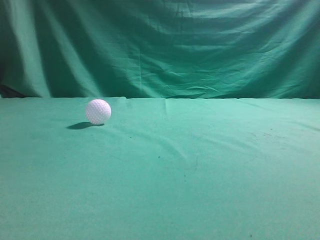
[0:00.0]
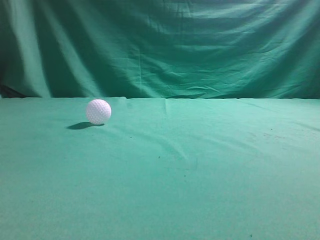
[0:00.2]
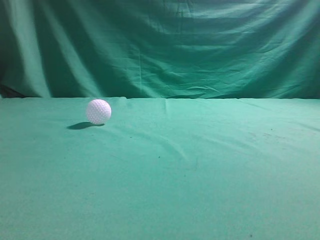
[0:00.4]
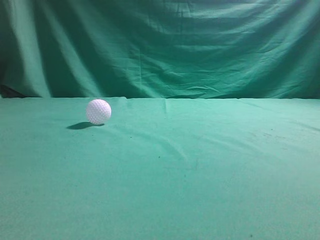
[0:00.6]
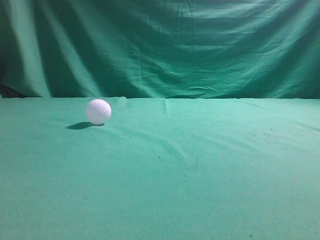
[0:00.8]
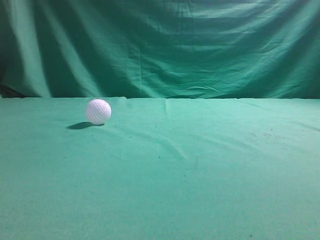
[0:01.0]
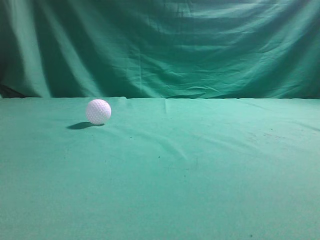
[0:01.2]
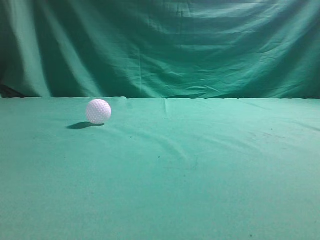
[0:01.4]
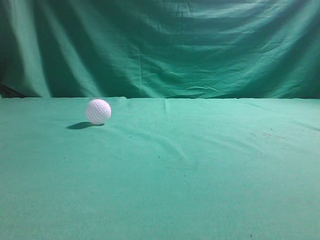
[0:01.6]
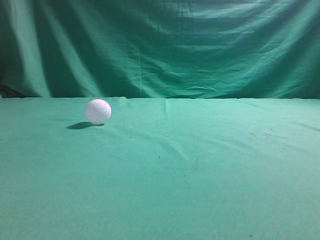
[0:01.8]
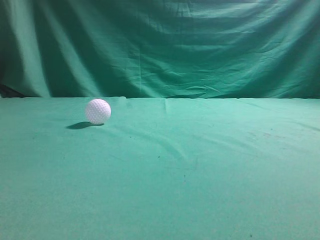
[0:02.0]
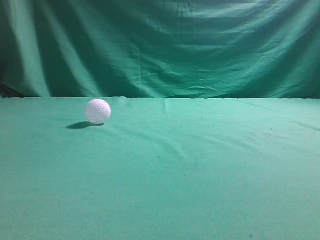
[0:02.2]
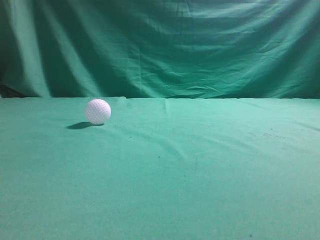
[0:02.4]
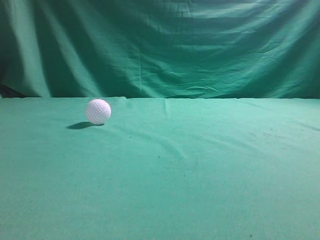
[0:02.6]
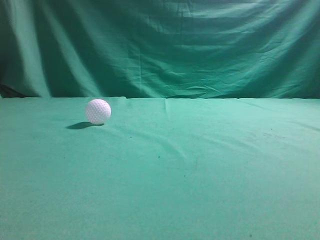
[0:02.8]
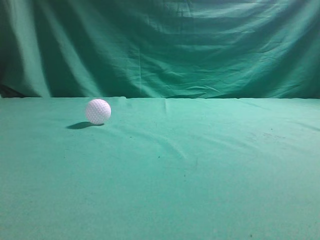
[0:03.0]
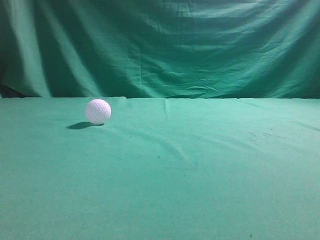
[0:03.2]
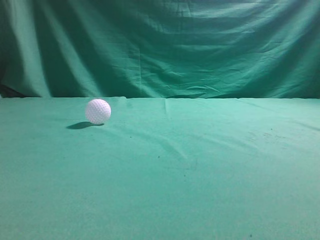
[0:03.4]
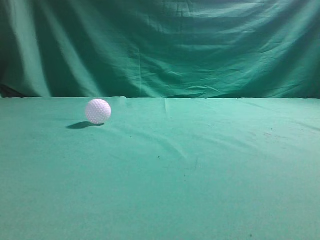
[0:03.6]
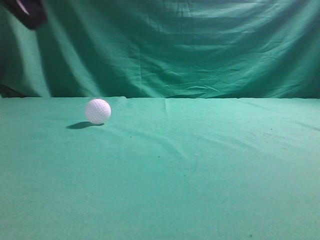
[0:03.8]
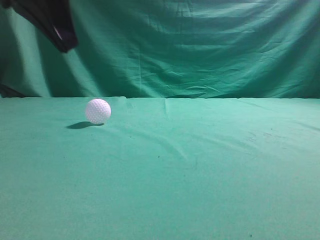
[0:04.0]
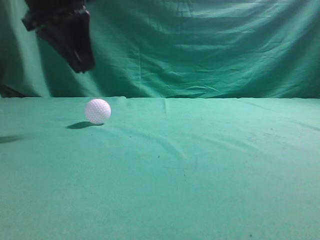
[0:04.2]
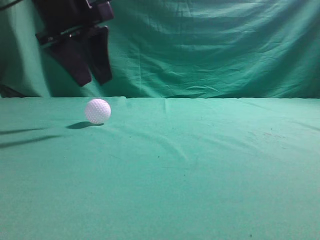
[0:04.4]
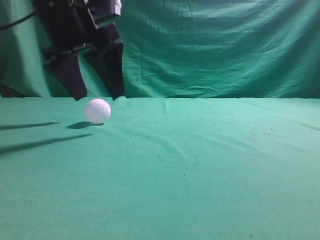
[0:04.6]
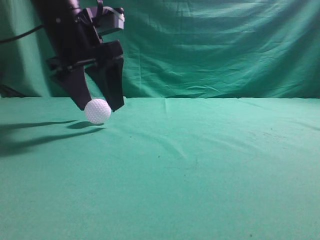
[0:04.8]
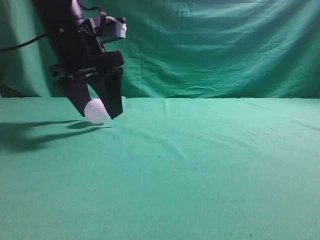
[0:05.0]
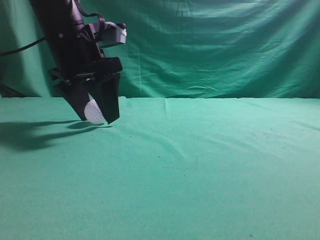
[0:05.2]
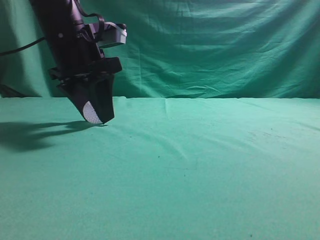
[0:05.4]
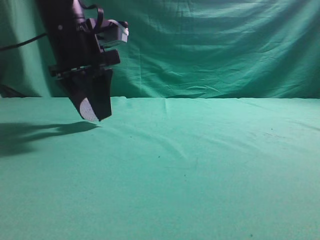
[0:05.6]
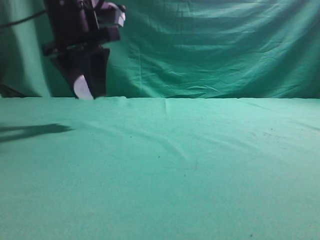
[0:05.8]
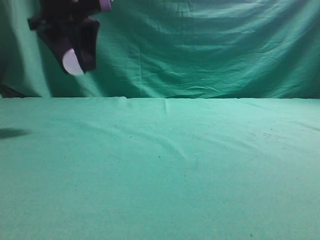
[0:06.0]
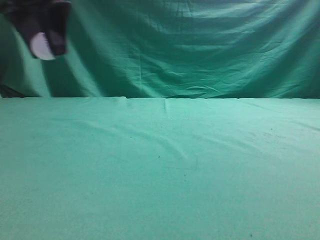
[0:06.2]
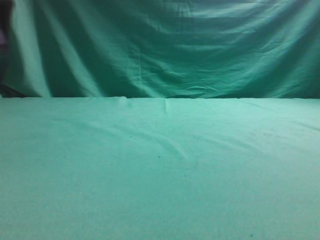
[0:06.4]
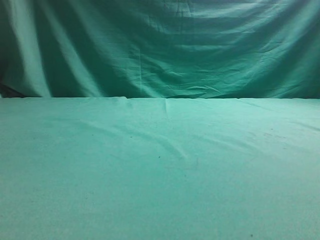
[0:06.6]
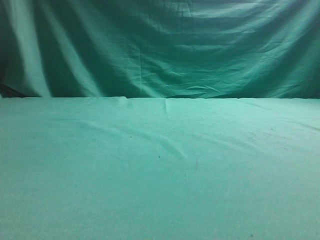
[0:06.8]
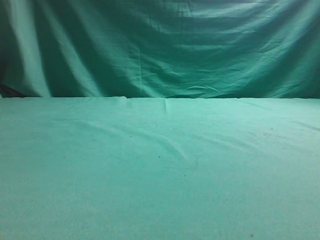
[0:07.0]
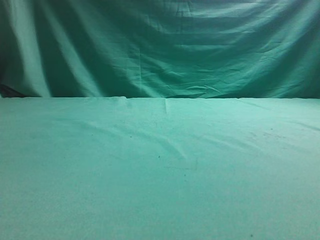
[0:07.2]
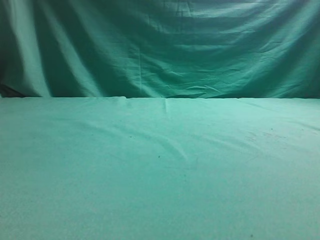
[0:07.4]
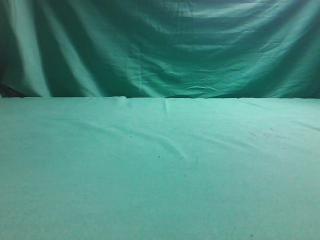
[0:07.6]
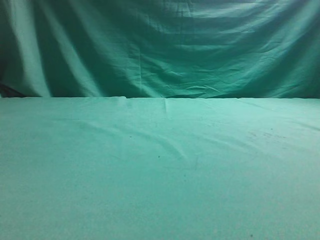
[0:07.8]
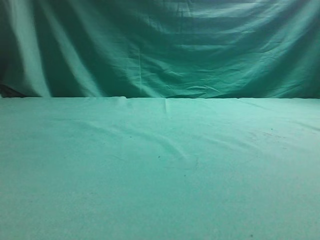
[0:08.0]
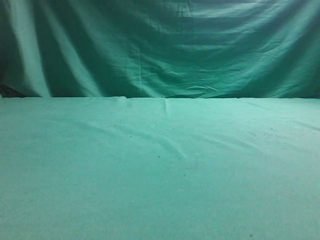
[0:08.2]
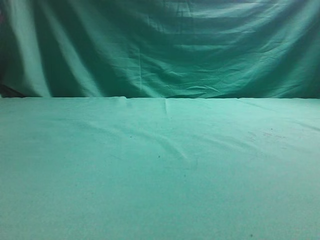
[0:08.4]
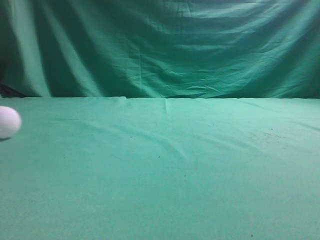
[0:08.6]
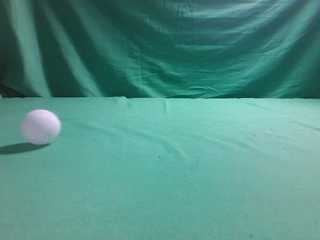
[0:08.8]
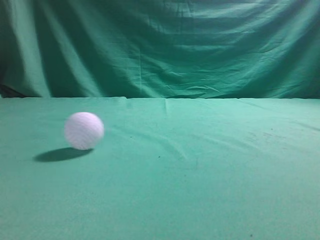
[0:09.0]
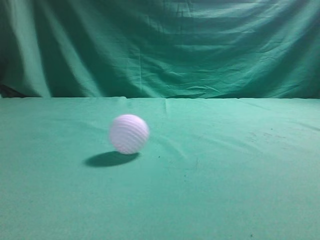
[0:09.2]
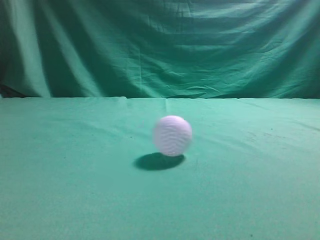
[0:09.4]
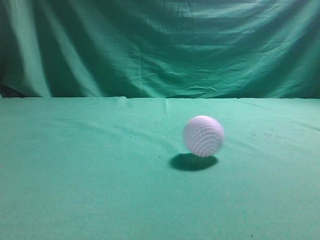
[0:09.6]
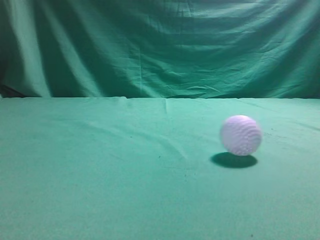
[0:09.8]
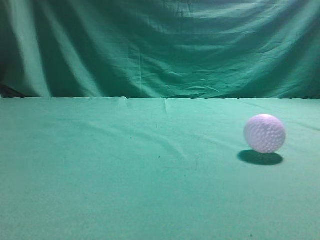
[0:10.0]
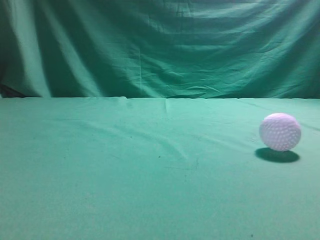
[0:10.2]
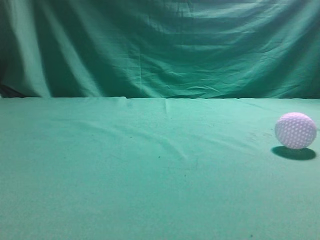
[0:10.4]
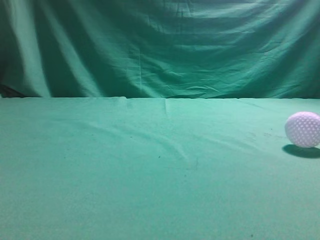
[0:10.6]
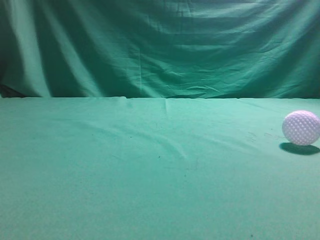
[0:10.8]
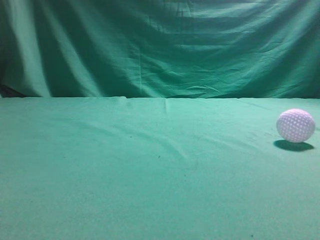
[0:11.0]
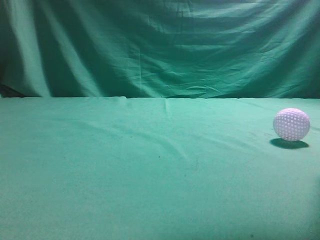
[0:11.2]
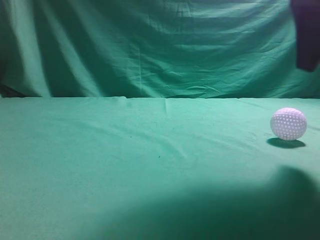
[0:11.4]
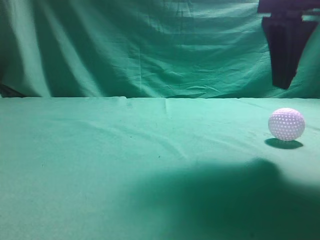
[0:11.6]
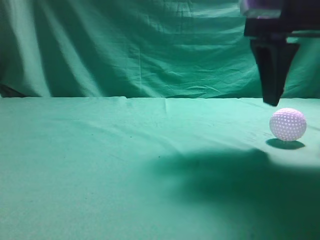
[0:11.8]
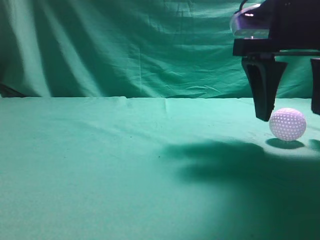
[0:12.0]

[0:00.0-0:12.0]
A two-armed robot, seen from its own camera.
Task of the whole recording: pick up the ball and place it on the plate, then pick up the ball from the plate and put it in the center of the table.
Step, 0:00.0 to 0:05.6: Grab the spherical object with your left arm.
Step, 0:05.8 to 0:08.0: Place the sphere on the white object.
0:03.0 to 0:04.4: The left gripper goes approximately 30 cm forward and to the right, and opens its fingers.
0:04.4 to 0:06.0: The left gripper reaches about 5 cm downward, then returns, and opens, then closes once more.
0:06.0 to 0:07.6: The left gripper shifts roughly 20 cm to the left.
0:07.6 to 0:09.0: The left gripper is displaced upward and to the right by some 25 cm, and closes.
0:09.0 to 0:10.4: The right gripper travels upward by some 10 cm. Meanwhile the left gripper moves backward and downward, roughly 25 cm.
0:10.4 to 0:12.0: The right gripper heads forward, to the left and downward, covering about 25 cm, and opens.

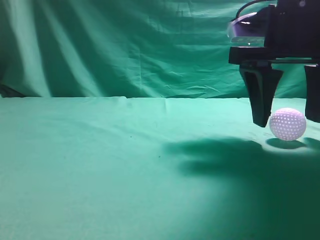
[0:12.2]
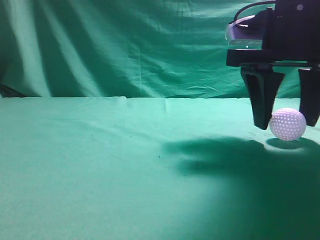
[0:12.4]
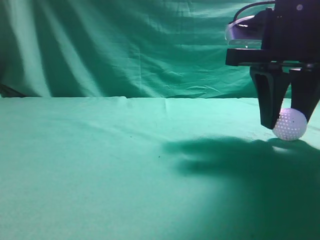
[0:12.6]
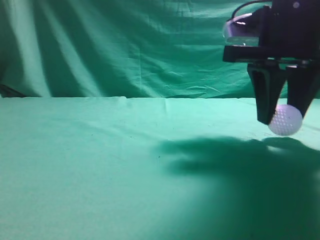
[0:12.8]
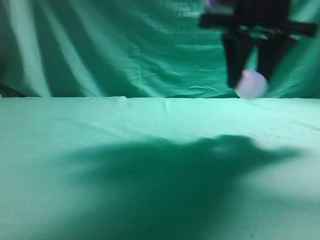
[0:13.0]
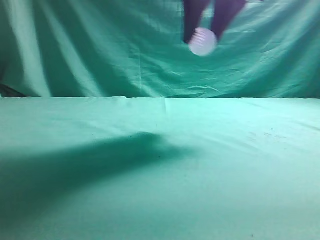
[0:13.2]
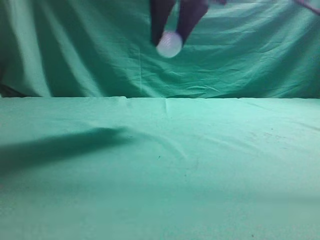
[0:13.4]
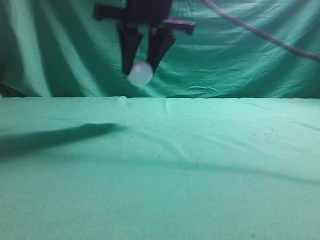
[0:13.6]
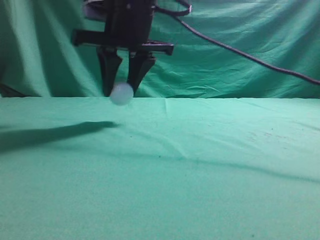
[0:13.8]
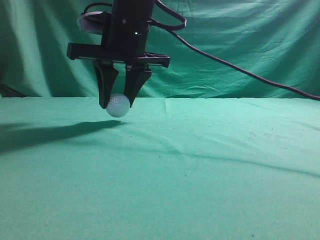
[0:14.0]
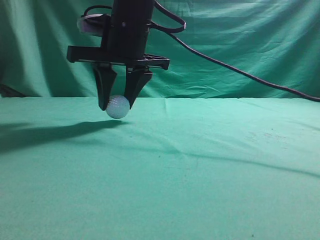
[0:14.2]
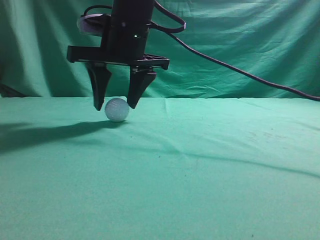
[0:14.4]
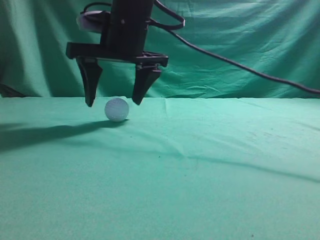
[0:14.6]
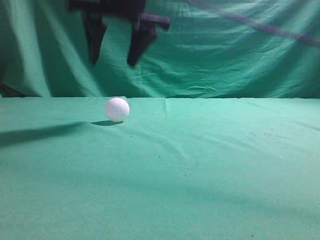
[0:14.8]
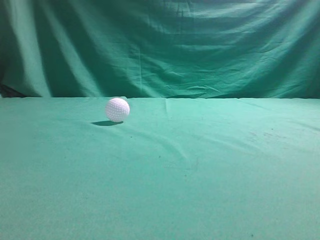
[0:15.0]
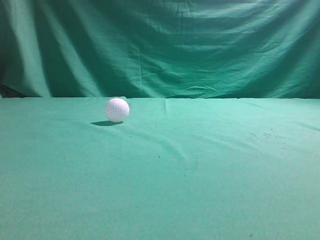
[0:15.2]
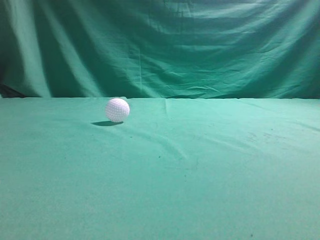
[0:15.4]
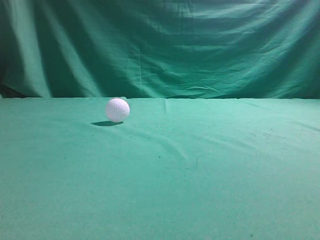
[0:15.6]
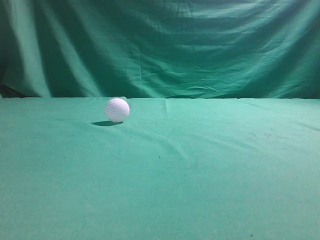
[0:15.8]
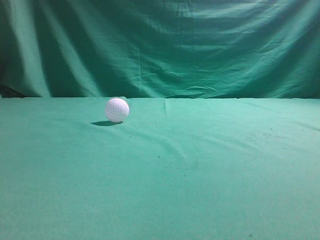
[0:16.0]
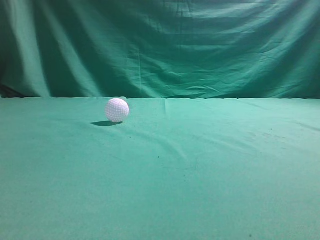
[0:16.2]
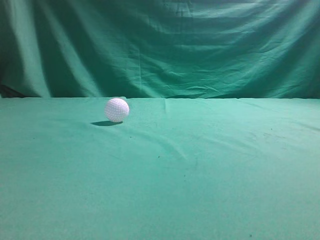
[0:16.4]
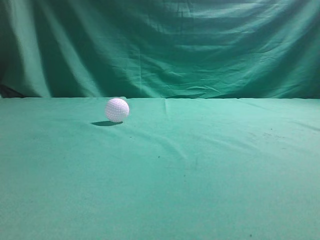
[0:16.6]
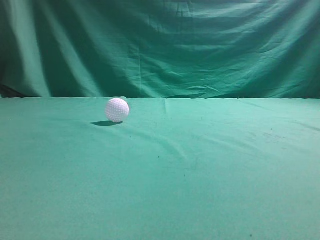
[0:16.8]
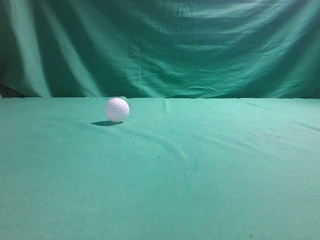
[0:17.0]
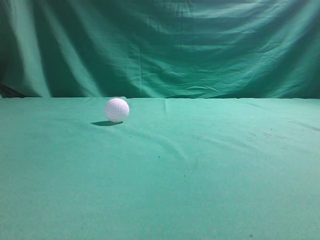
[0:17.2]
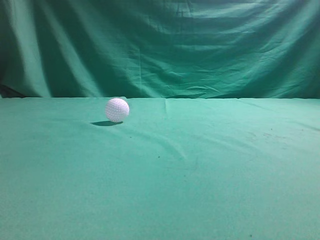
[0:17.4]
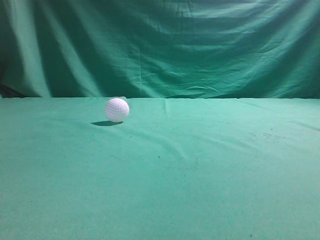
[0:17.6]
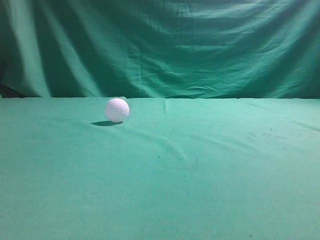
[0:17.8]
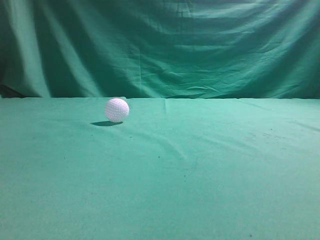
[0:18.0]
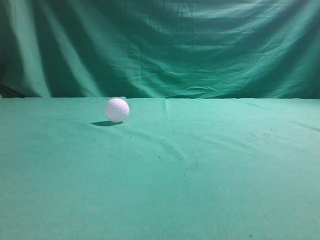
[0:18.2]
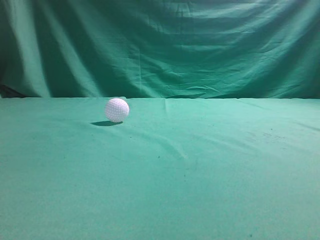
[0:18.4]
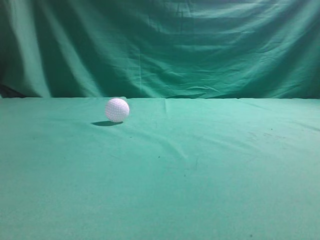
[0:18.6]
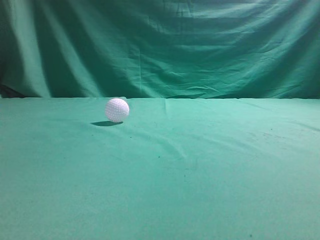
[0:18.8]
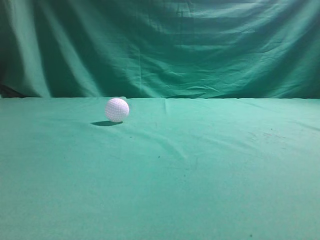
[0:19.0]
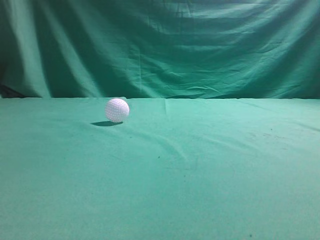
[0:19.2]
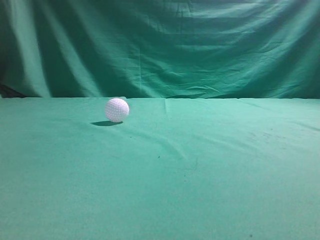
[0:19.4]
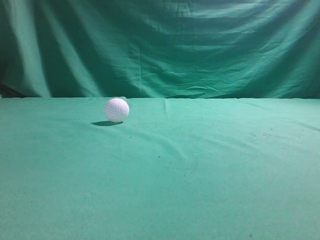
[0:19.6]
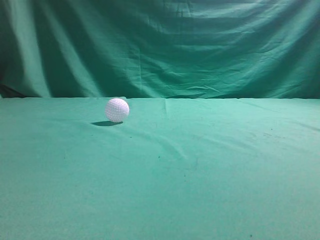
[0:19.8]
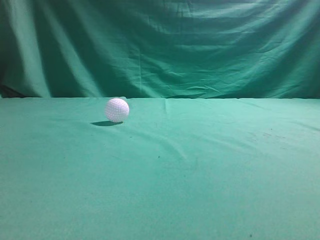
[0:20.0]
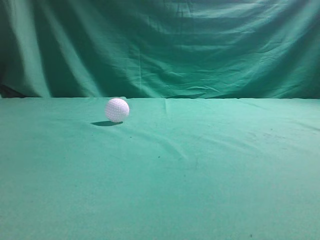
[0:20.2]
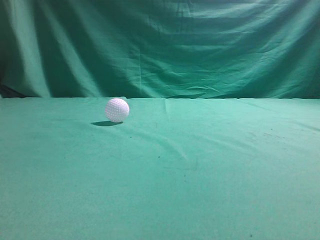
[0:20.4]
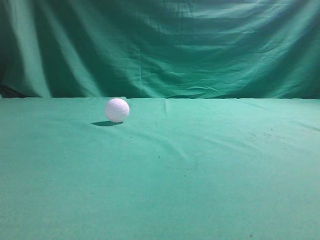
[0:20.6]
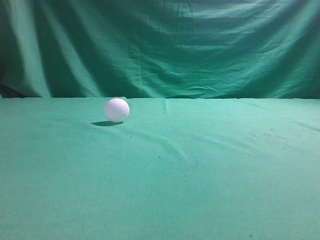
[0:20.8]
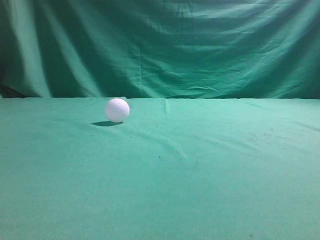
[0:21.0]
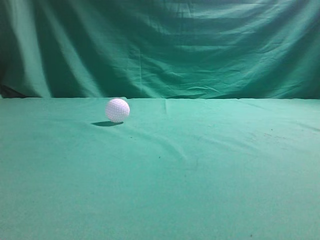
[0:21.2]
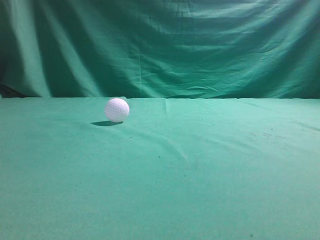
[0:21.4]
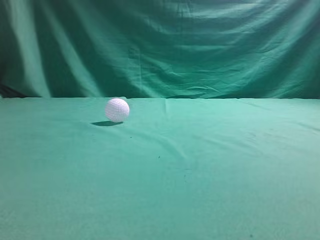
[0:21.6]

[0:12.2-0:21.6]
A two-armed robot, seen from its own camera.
Task of the whole recording: pick up the ball and place it on the plate, then pick up the ball from the plate and put it in the center of the table.
Step, 0:13.0 to 0:14.6: Put the picked-up object on the table.
0:12.2 to 0:13.8: The right gripper moves to the left, approximately 20 cm, and closes its fingers.
0:13.8 to 0:15.4: The right gripper shifts some 30 cm upward and to the right, and closes its fingers.
